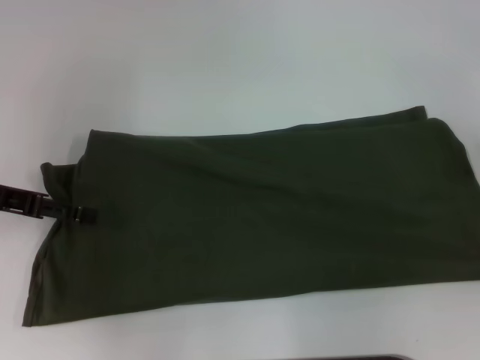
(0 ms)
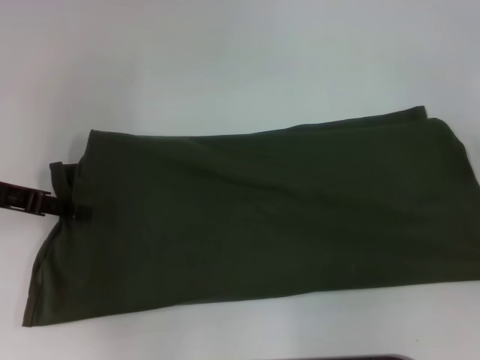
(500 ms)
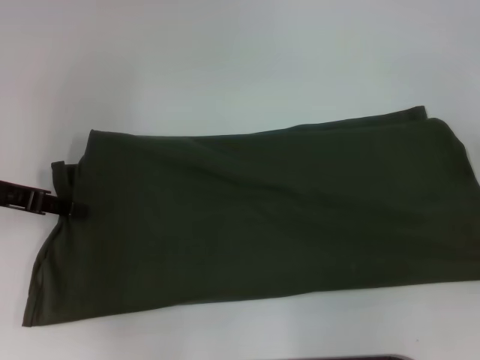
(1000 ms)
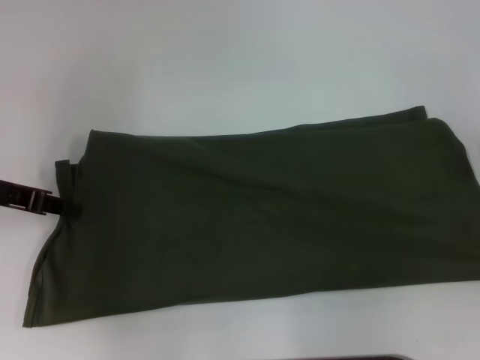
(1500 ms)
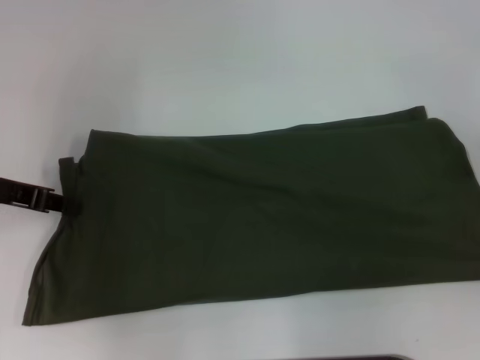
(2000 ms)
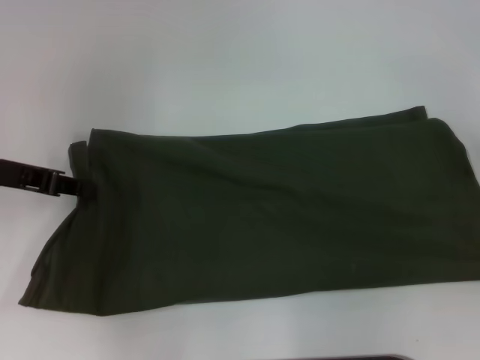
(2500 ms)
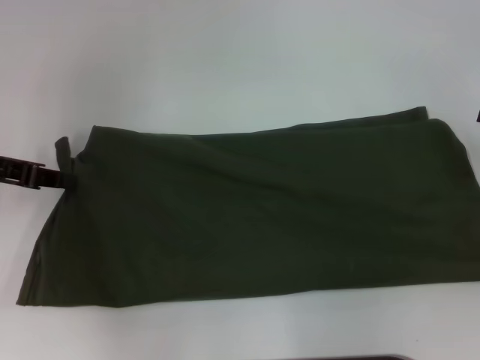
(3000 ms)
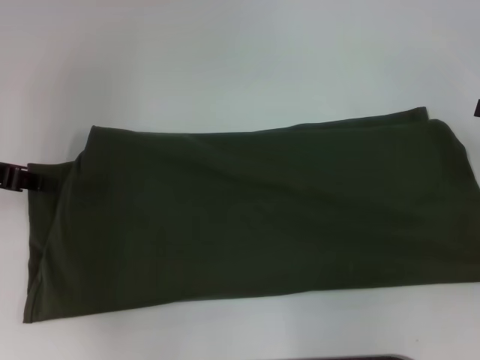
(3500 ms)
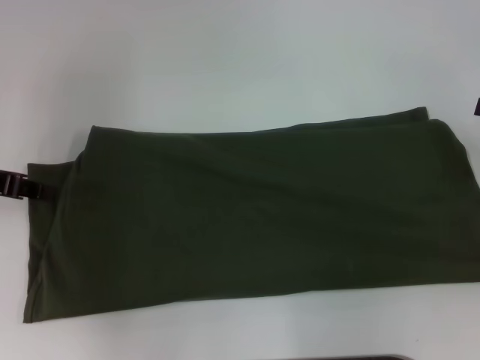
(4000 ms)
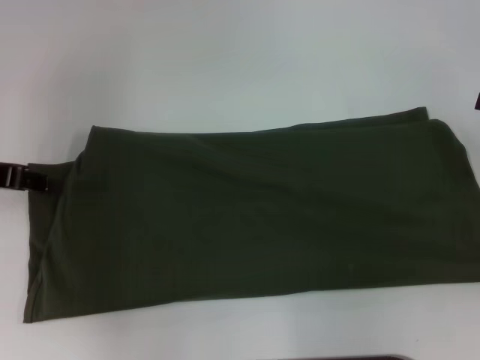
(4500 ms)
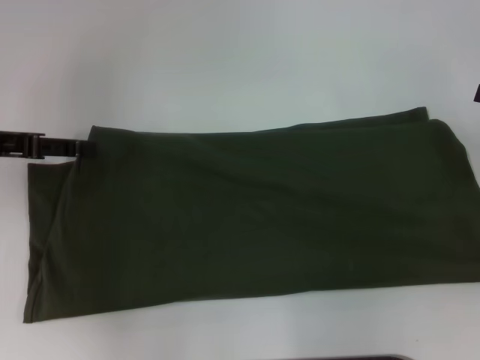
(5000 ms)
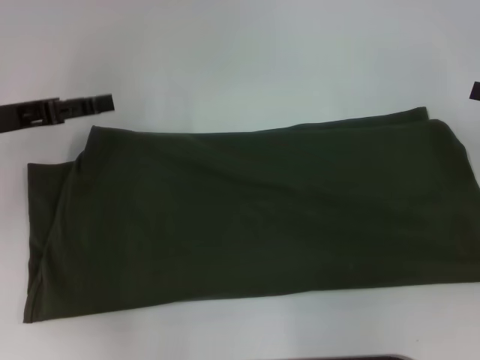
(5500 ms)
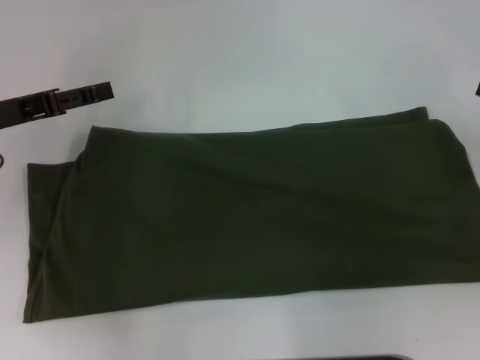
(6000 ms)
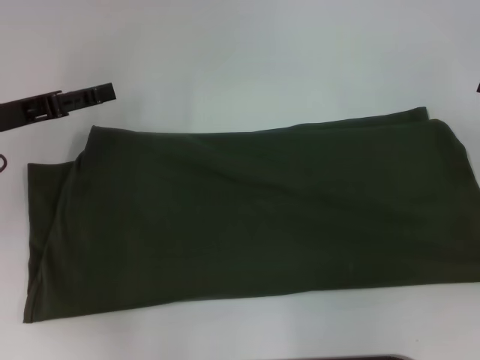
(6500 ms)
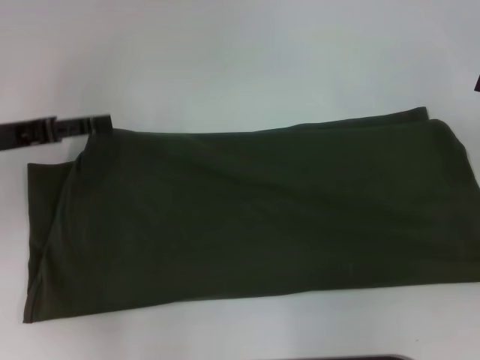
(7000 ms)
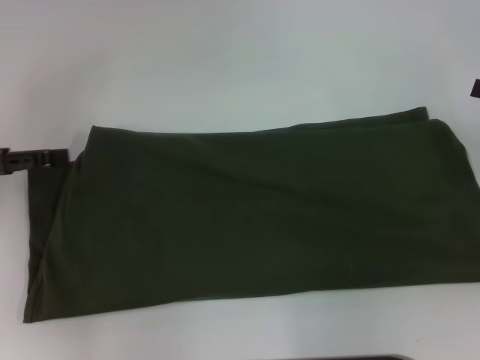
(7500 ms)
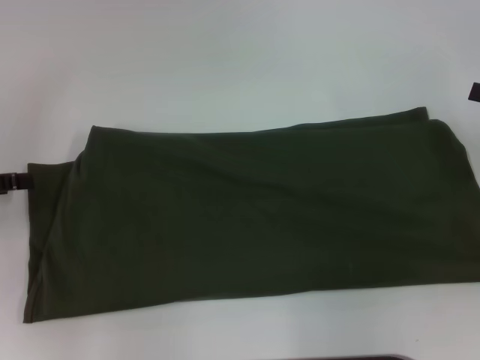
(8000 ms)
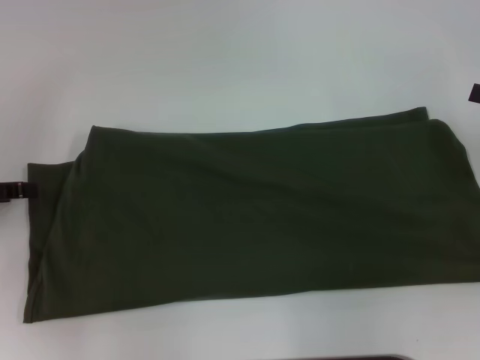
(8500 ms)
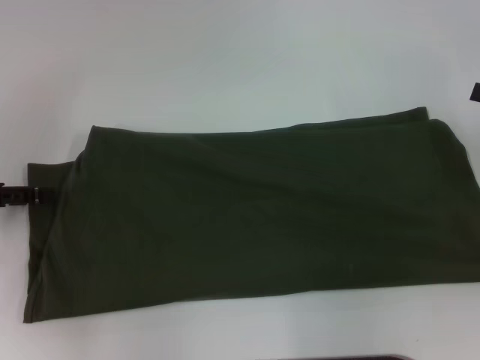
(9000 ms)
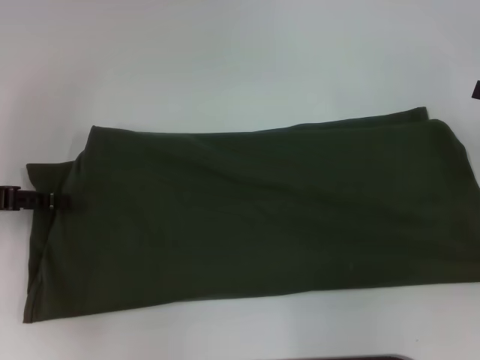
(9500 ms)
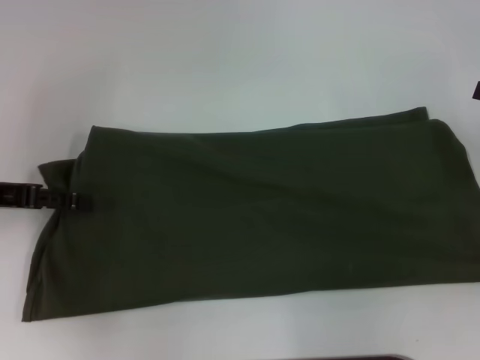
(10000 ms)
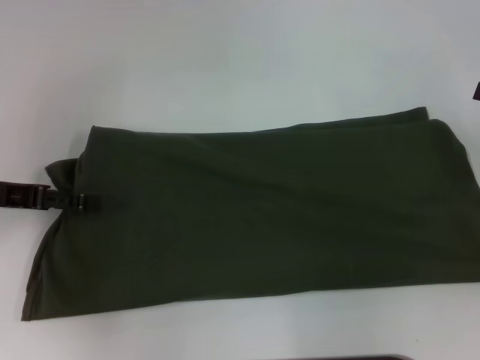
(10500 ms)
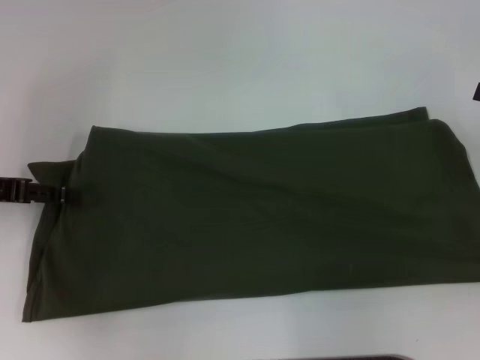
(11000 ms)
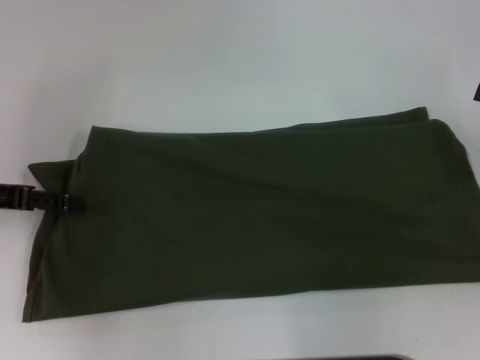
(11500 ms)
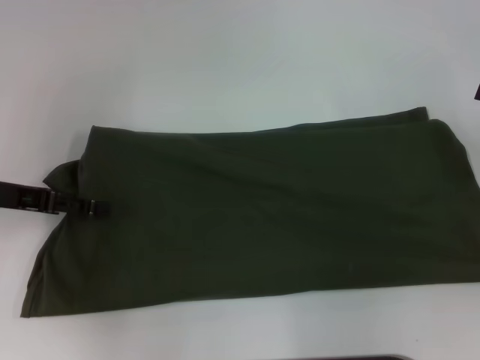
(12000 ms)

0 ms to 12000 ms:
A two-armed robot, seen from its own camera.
0 ms to 2000 ms: The left gripper closes its fingers.
2000 ms to 4000 ms: The grippers make only small movements.
4000 ms to 6000 ms: The left gripper opens up.
6000 ms to 8000 ms: The left gripper moves to the left, approximately 10 cm.
8000 ms to 10000 ms: The left gripper shifts some 5 cm to the right.
10000 ms to 12000 ms: The grippers make only small movements.

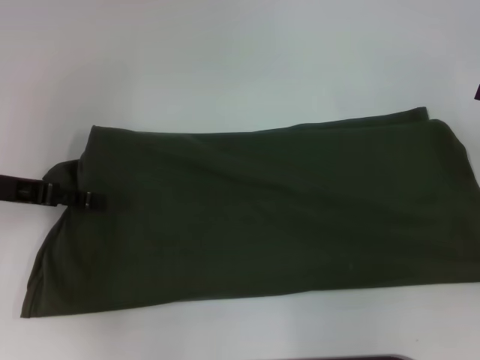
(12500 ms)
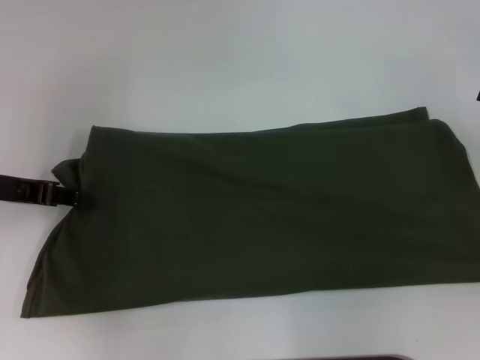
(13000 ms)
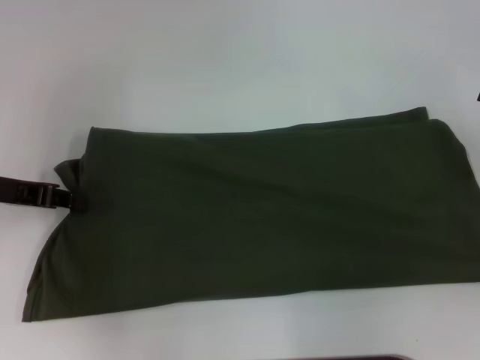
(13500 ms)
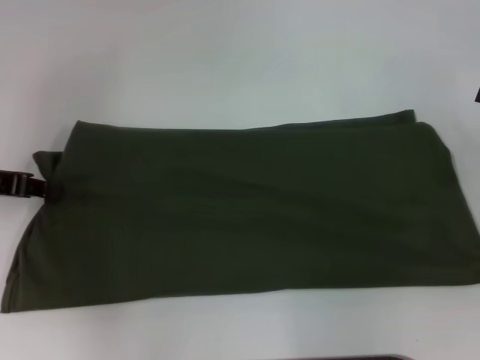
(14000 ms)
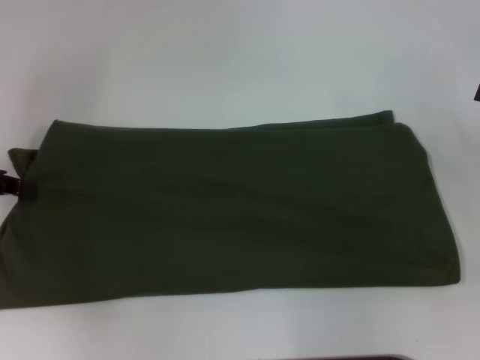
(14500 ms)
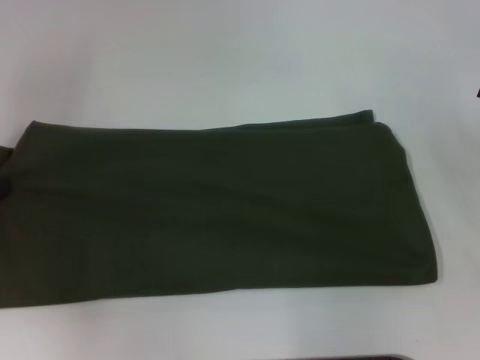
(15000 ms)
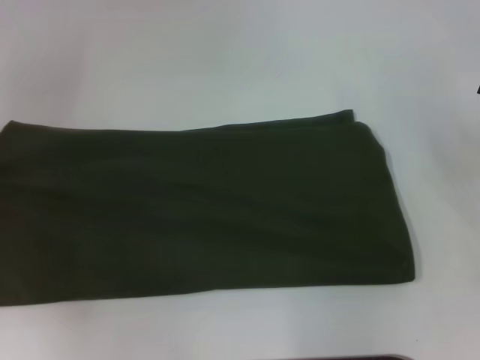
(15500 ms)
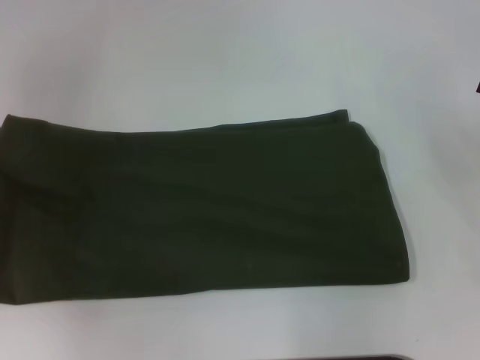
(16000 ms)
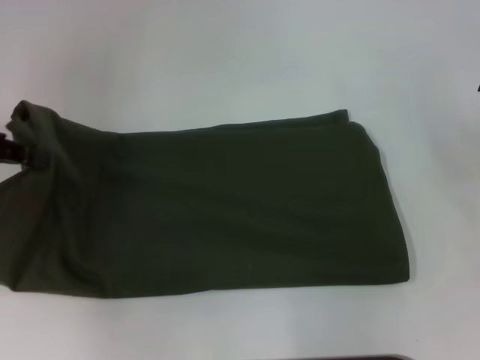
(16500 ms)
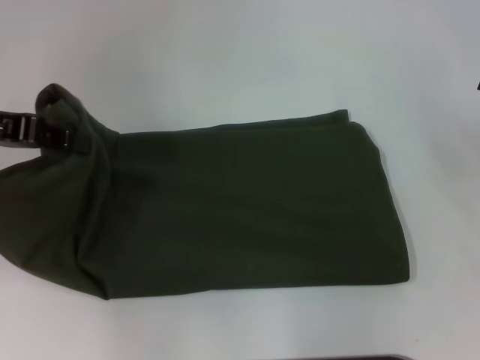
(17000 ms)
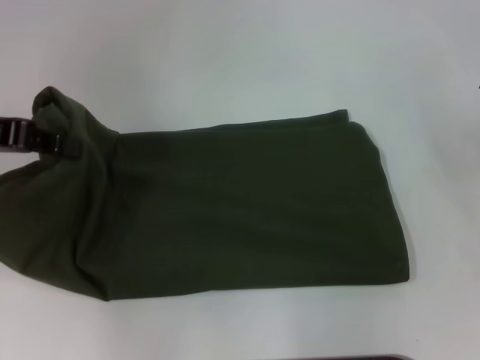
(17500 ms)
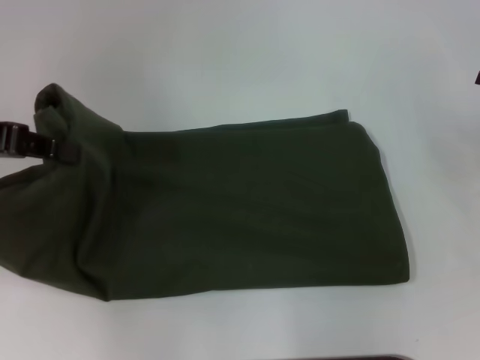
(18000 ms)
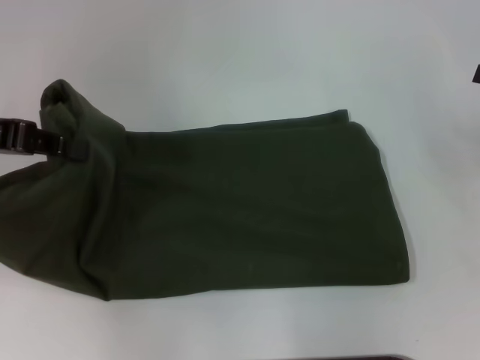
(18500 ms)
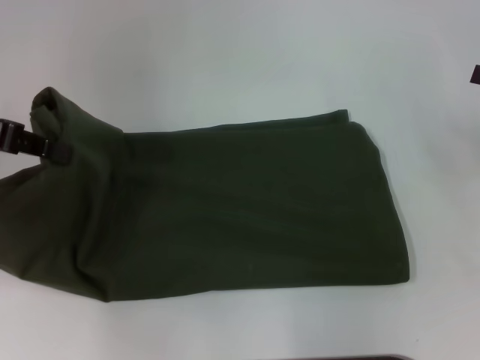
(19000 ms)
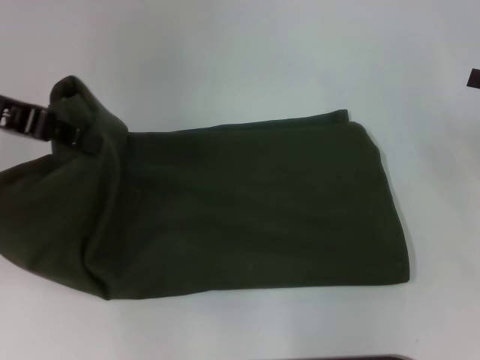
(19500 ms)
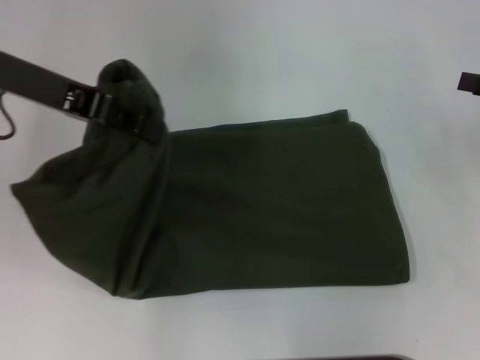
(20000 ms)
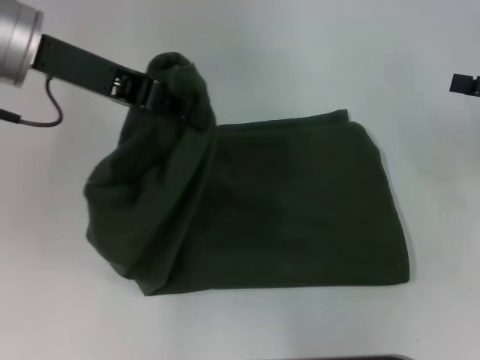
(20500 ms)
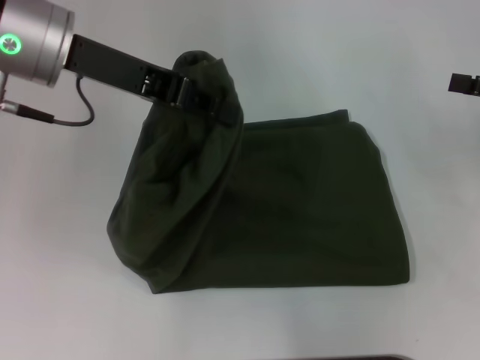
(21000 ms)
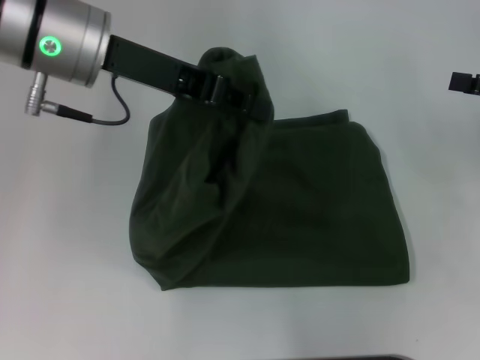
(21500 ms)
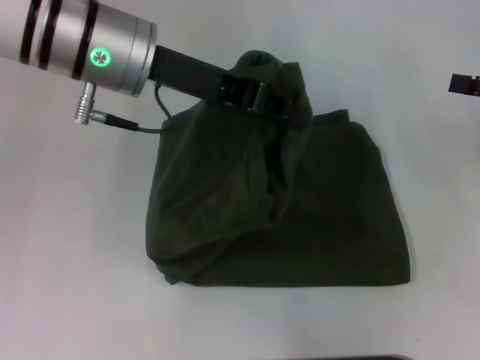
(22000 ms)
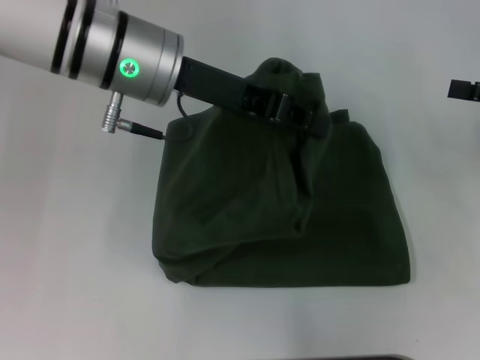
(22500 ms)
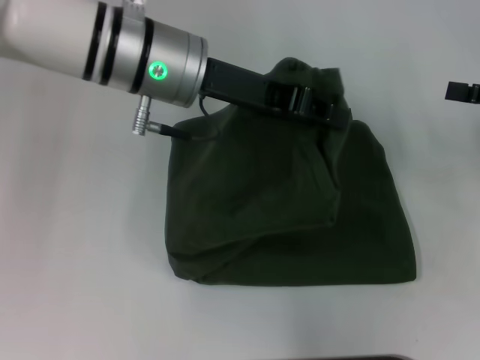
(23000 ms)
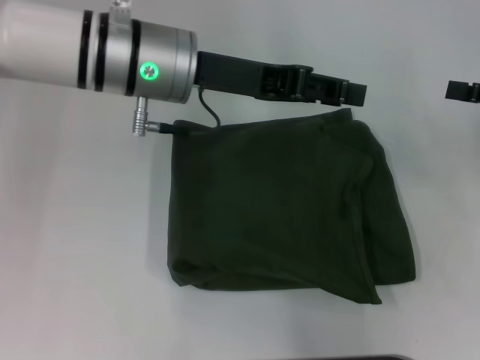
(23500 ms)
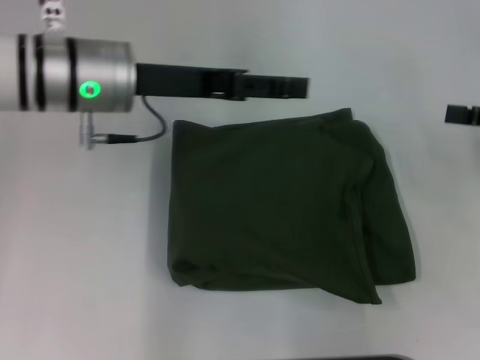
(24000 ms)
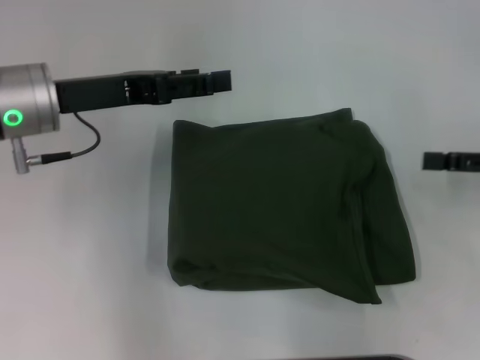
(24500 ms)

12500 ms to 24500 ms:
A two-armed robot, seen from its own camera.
Step, 12500 ms to 24000 ms: Fold the clothes with your left hand.
12500 ms to 14500 ms: The left gripper closes.
14500 ms to 16500 ms: The left gripper is displaced upward by some 5 cm.
16500 ms to 18500 ms: The grippers stay close to where they were, moving slightly.
18500 ms to 20500 ms: The left gripper shifts roughly 10 cm to the right.
20500 ms to 22500 ms: The left gripper travels to the right by some 10 cm.
22500 ms to 24500 ms: The left gripper goes about 10 cm to the left, and opens up.

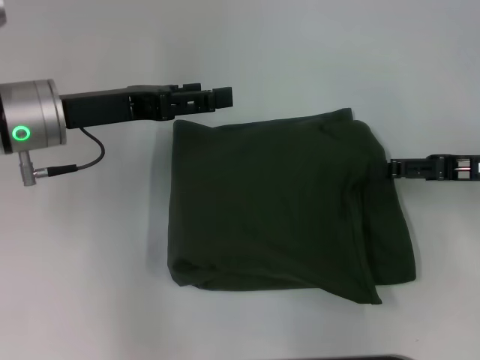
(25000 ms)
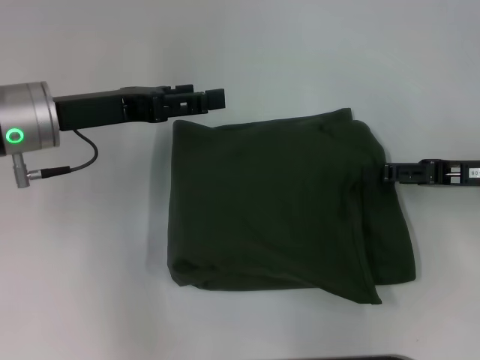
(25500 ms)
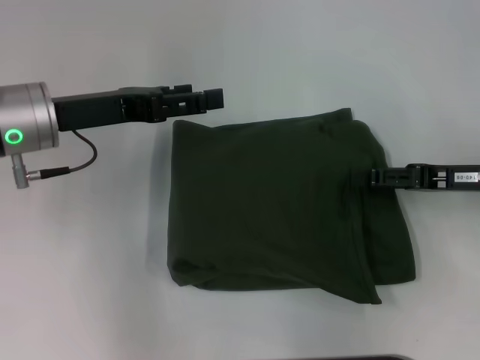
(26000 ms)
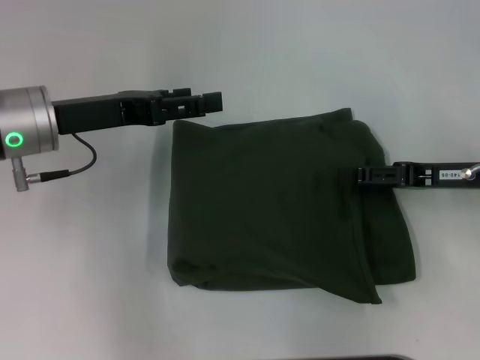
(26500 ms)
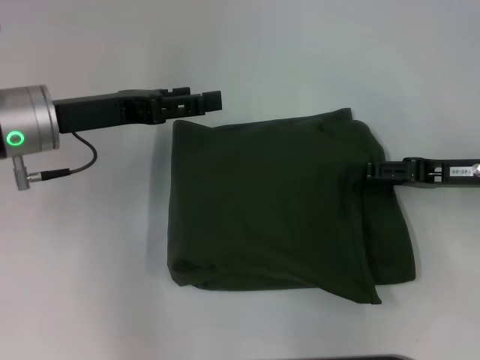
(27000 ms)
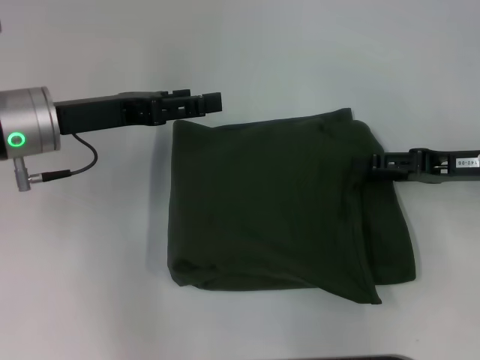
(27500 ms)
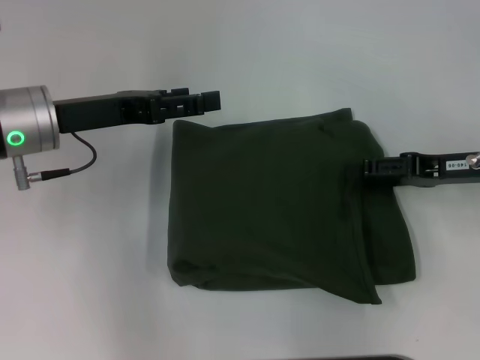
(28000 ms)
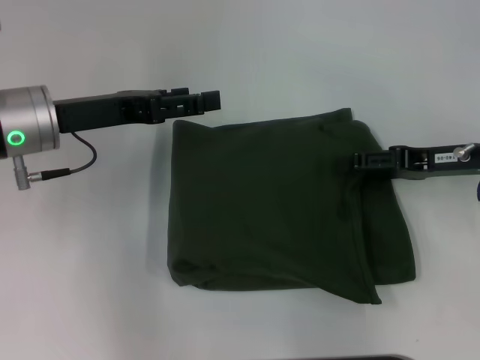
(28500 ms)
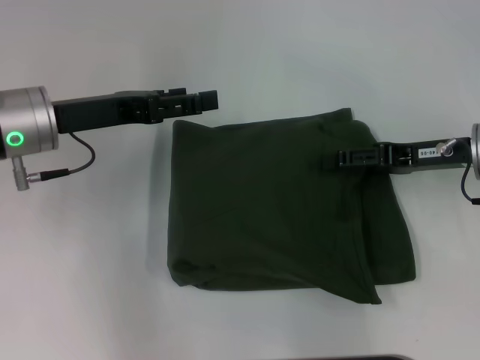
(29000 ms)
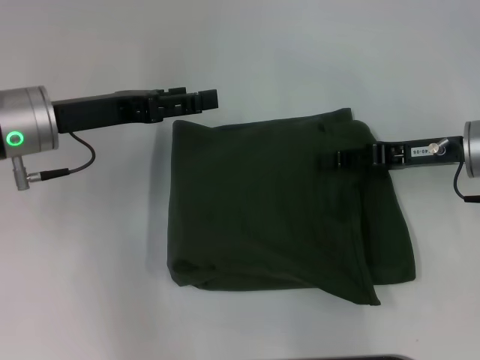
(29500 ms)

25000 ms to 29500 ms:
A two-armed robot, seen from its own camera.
25000 ms to 27000 ms: There are only small adjustments of the grippers.
27000 ms to 29500 ms: The right gripper closes up.
